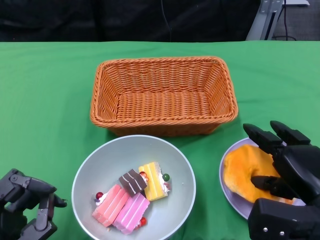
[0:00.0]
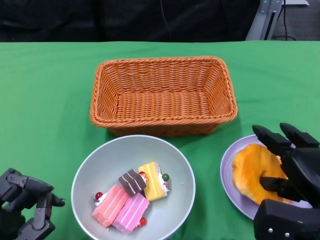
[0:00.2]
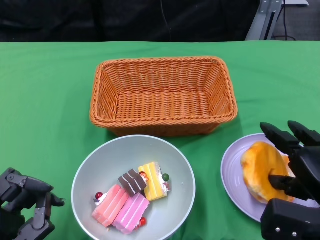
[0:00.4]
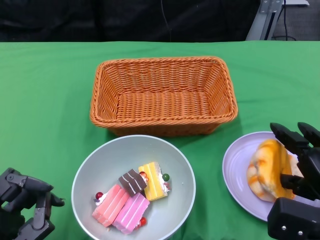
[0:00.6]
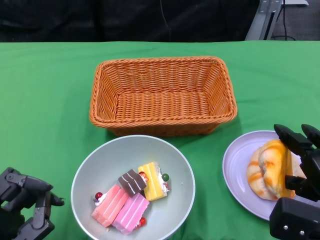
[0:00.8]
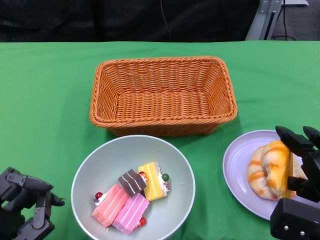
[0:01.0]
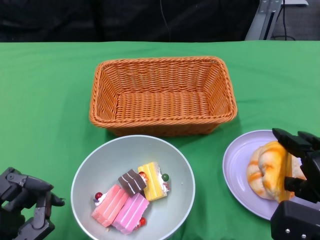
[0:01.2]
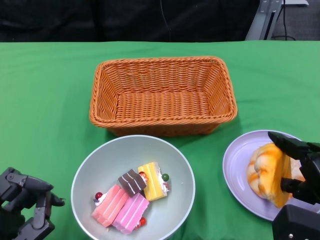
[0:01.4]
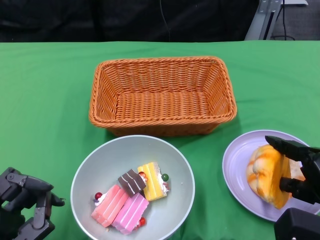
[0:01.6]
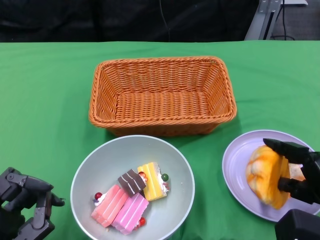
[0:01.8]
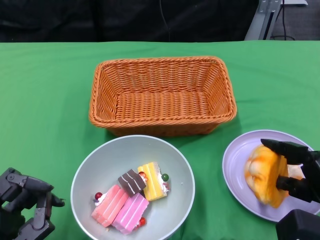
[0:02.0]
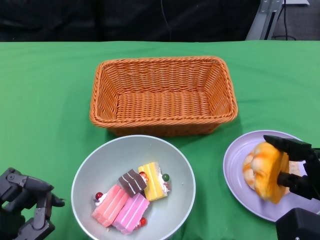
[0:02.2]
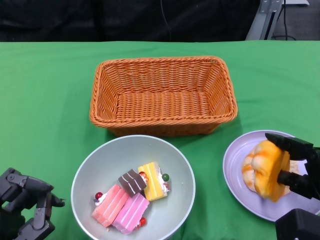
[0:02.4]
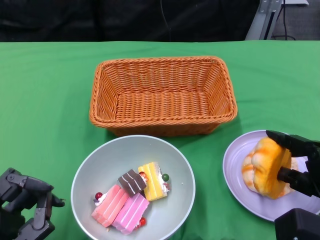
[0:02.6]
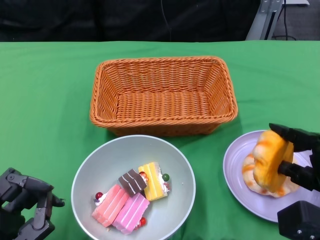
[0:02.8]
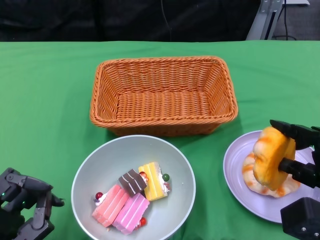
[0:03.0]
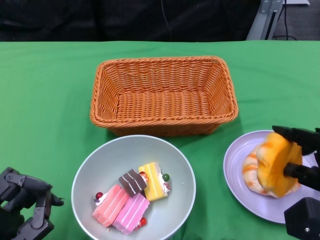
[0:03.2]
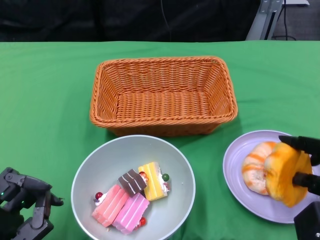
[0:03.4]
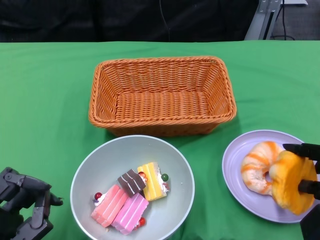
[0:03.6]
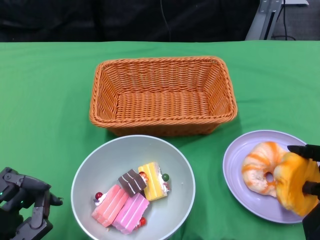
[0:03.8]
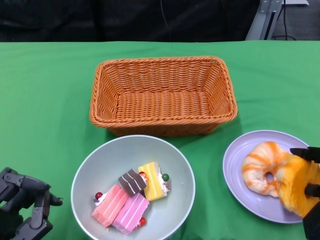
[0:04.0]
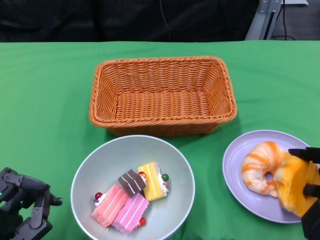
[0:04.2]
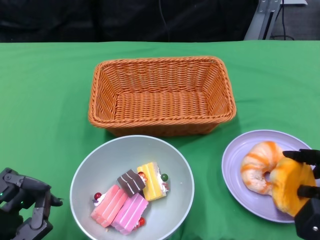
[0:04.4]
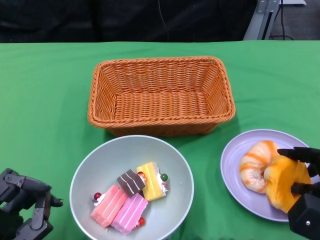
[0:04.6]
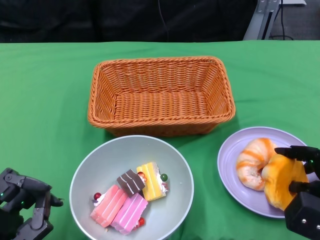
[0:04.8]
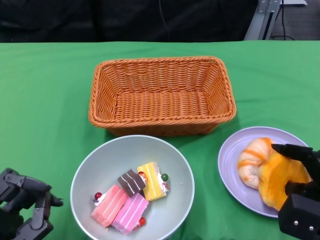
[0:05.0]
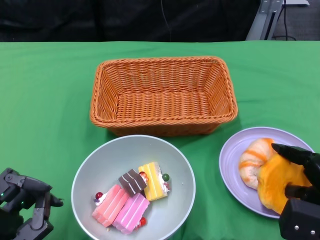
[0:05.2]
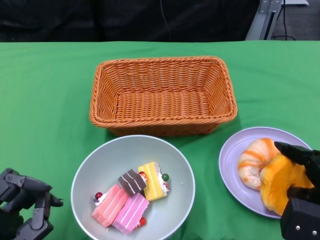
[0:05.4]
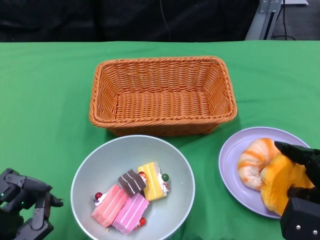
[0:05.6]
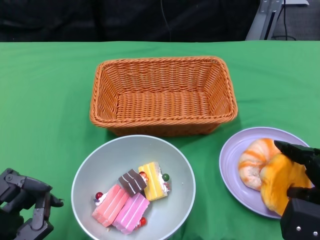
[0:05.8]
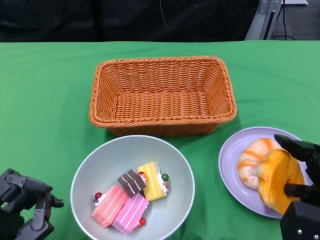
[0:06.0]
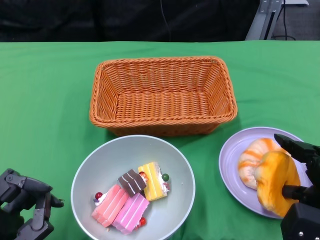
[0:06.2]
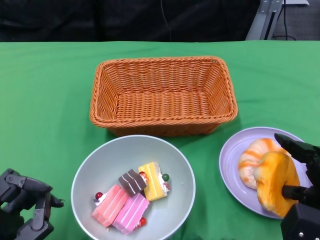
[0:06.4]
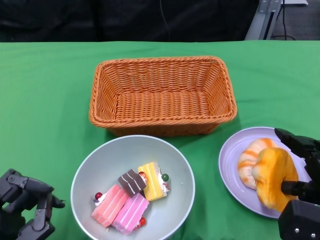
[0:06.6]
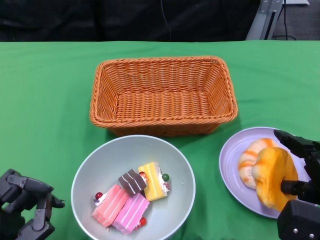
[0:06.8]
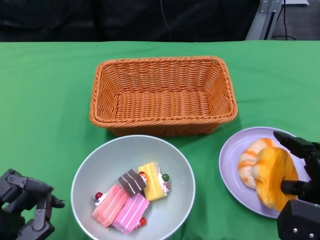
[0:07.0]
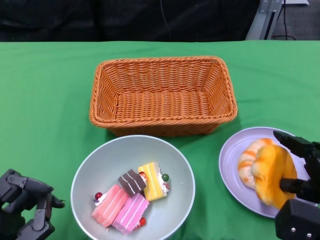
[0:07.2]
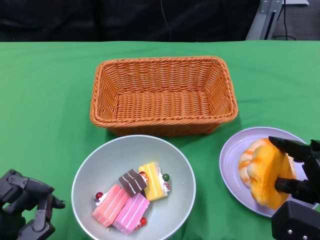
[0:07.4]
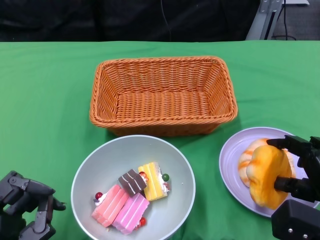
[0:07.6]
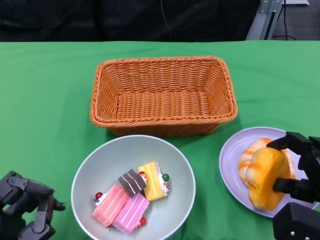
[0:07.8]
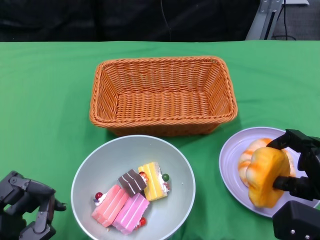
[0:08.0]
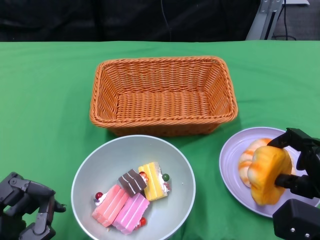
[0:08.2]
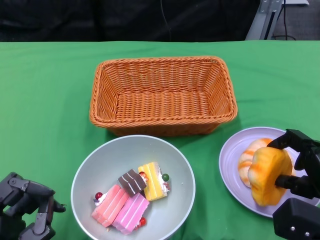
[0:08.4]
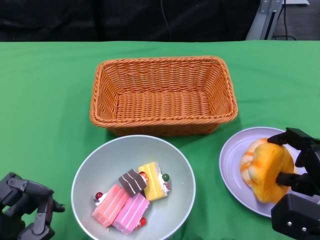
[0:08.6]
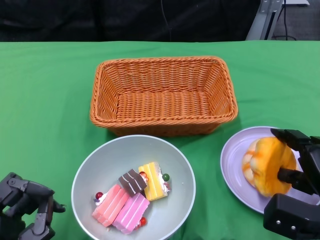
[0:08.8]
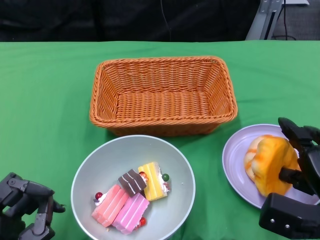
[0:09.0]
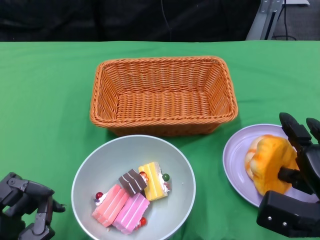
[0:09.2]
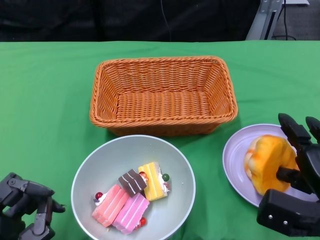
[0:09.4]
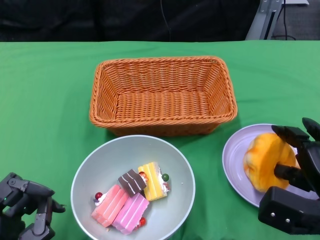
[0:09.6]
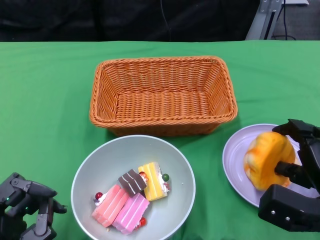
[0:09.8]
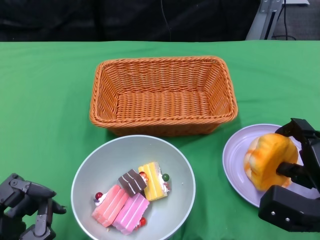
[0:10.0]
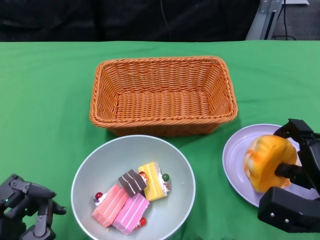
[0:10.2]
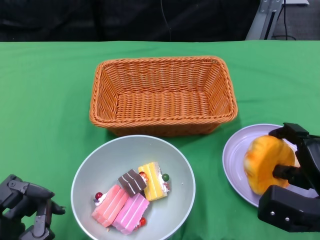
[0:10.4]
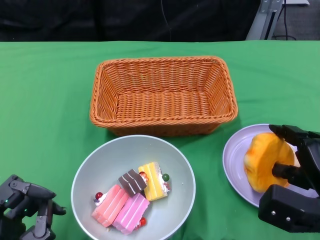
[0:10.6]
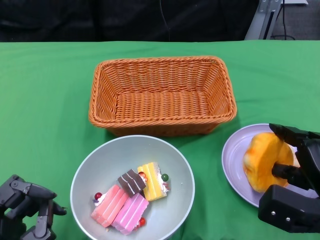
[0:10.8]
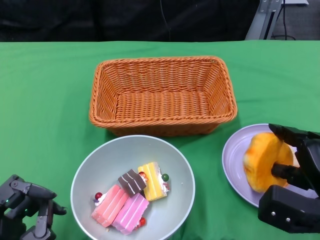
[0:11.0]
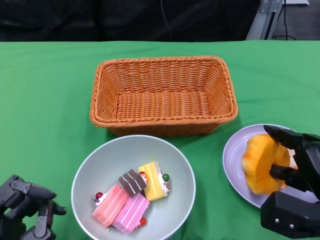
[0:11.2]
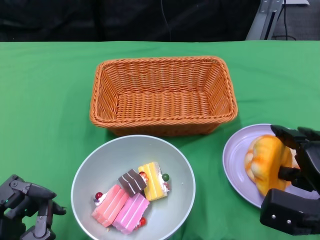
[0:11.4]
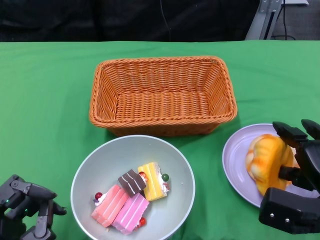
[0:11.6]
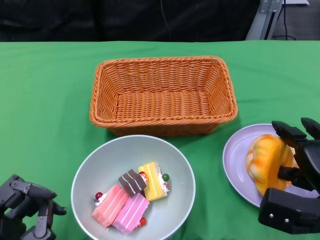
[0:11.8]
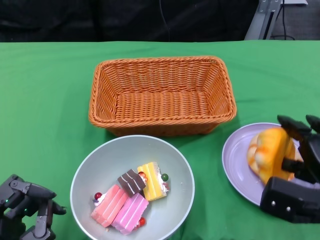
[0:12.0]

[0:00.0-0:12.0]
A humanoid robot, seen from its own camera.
0:00.0 to 0:01.6: The hands stay close to where they were, moving slightly.
0:01.6 to 0:03.0: The hands move only a little.
0:04.4 to 0:12.0: There are only small adjustments of the hands.

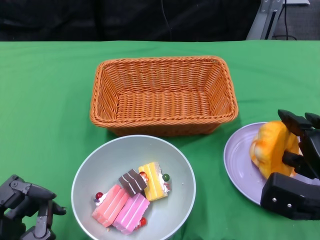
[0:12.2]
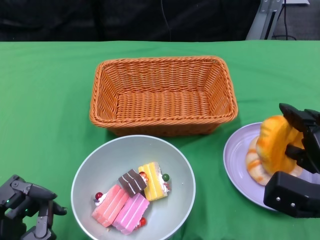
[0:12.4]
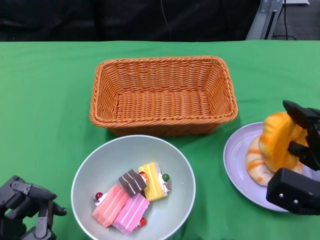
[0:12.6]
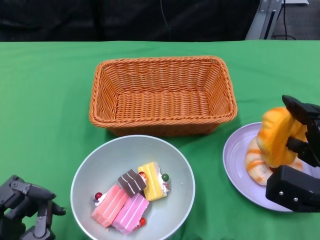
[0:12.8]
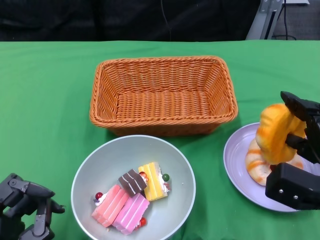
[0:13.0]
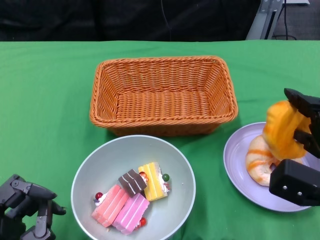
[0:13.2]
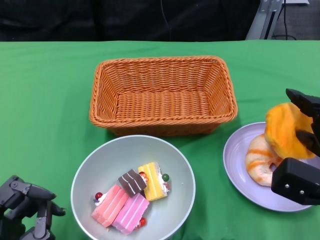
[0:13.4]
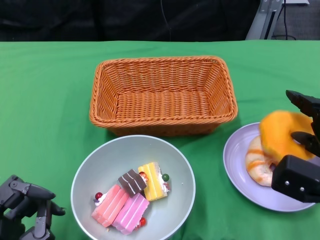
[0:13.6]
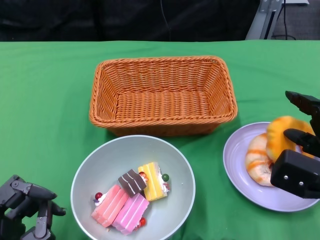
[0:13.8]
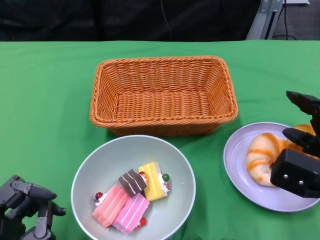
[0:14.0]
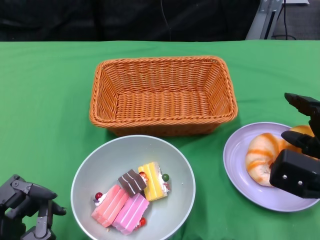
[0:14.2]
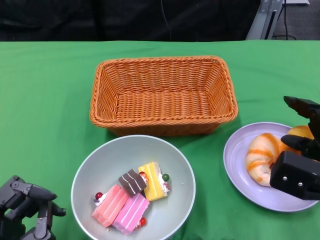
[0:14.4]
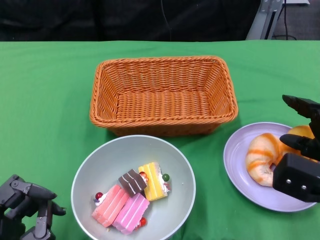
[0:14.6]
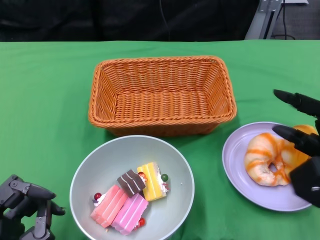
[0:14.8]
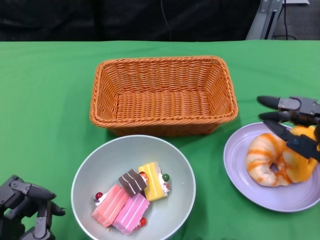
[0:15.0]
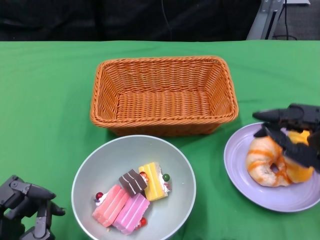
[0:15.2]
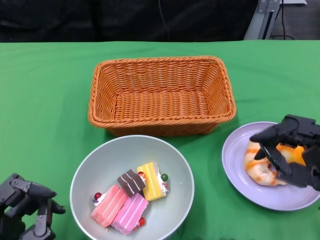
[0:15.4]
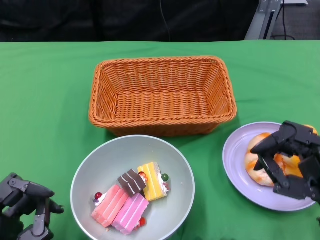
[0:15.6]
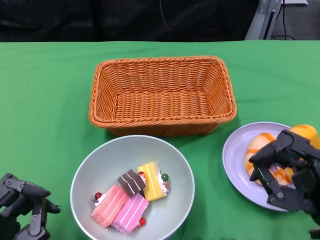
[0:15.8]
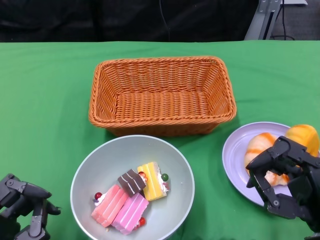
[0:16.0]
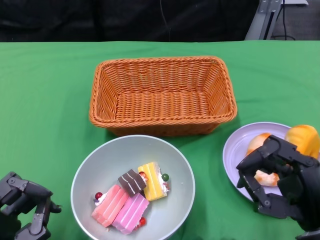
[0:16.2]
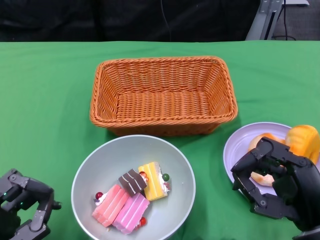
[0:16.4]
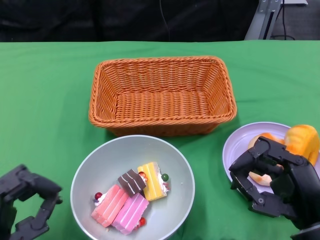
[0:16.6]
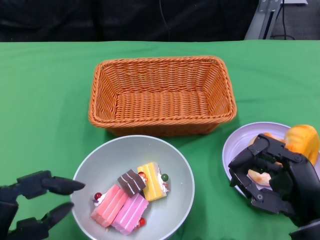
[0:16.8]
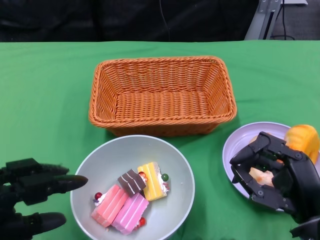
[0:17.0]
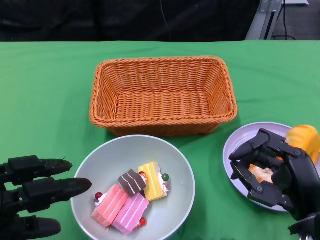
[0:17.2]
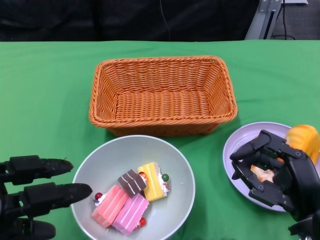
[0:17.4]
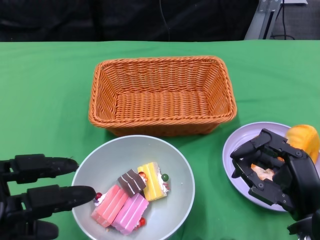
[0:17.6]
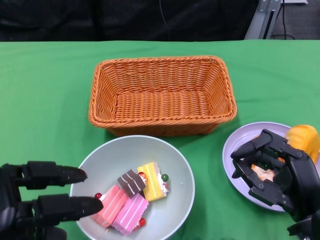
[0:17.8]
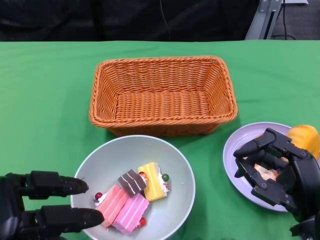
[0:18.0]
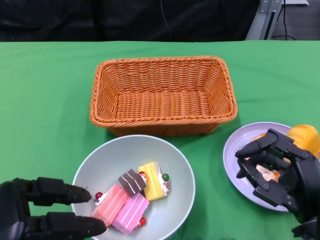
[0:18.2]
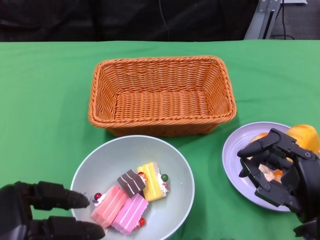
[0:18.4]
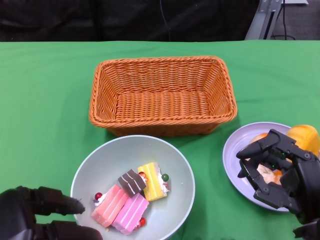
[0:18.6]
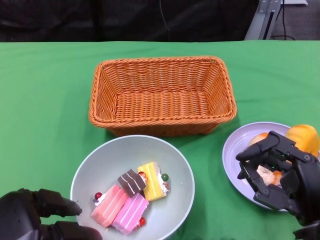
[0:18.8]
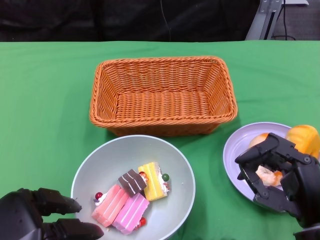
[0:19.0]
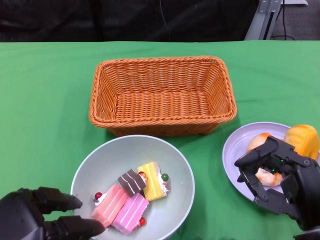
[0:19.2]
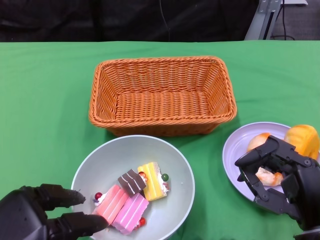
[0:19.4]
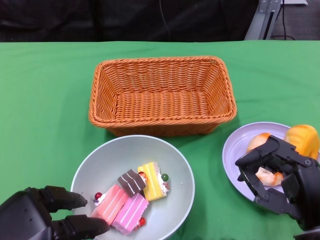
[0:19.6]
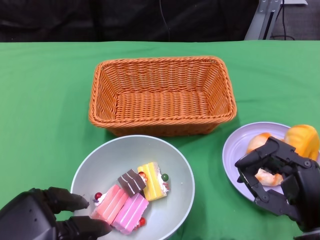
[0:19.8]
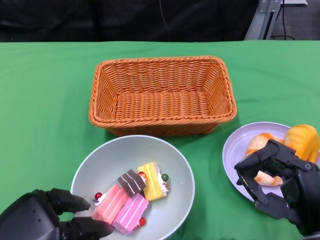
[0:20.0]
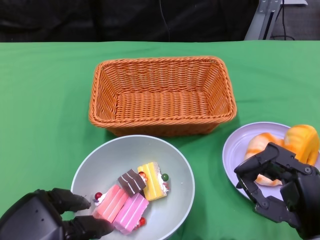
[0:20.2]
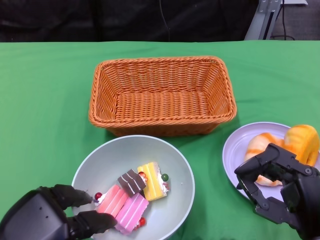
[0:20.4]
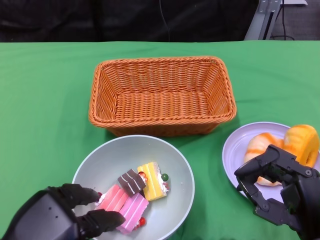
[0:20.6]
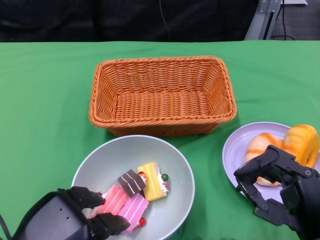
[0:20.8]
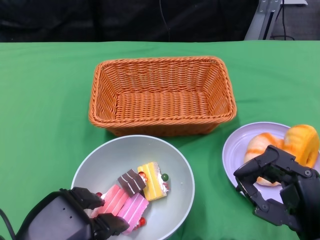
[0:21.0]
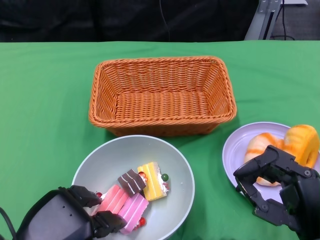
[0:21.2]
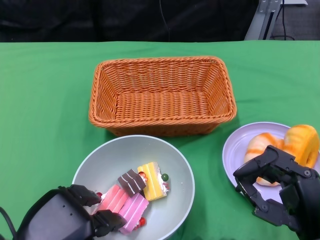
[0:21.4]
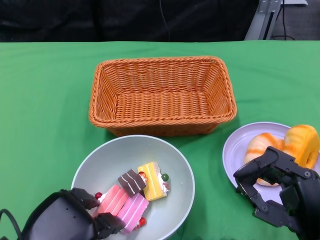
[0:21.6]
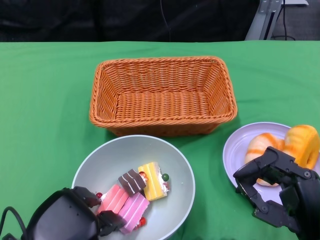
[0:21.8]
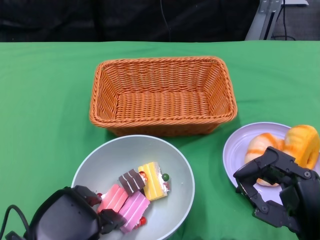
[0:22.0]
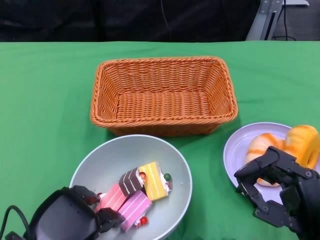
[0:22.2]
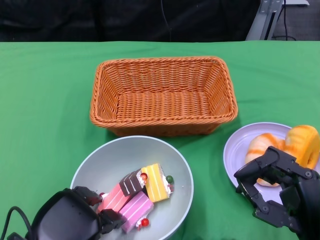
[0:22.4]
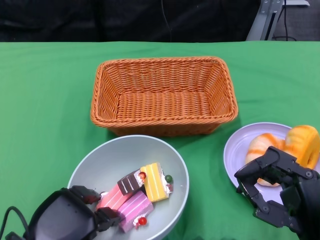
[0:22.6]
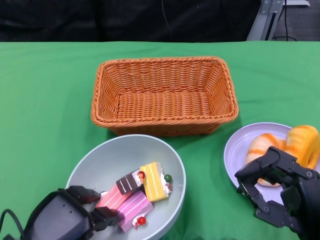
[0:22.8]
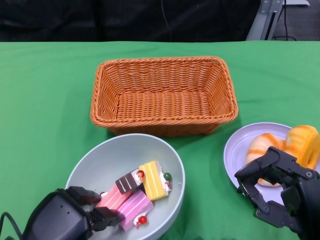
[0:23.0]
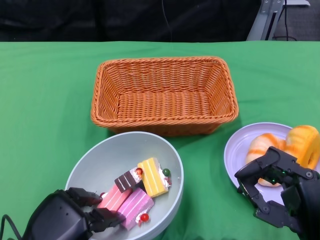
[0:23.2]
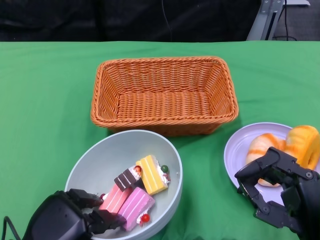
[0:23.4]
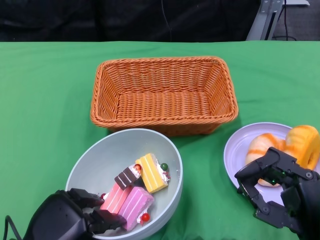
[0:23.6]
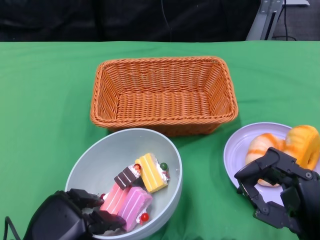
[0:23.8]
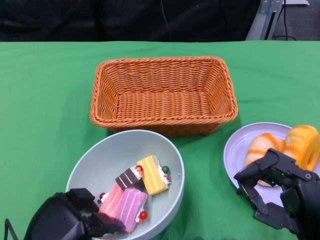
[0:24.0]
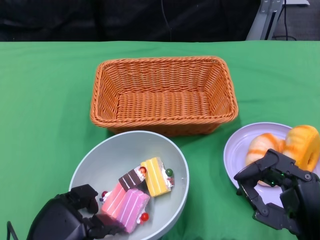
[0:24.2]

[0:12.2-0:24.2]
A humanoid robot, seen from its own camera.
Step, 0:12.2 to 0:14.4: Pick up the bread with the right gripper and place it on the plate.
0:12.2 to 0:13.8: The hands make only small movements.
0:15.2 to 0:16.6: The right hand moves some 5 cm.
0:16.6 to 0:18.2: The left hand is displaced upward by approximately 5 cm.
0:18.2 to 0:19.8: The hands move only a little.
0:19.8 to 0:22.6: The hands make only small movements.
